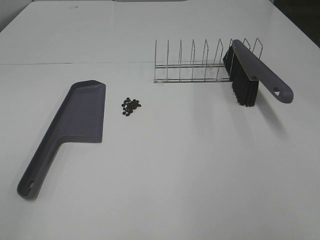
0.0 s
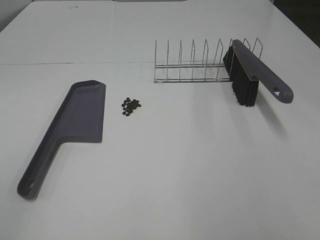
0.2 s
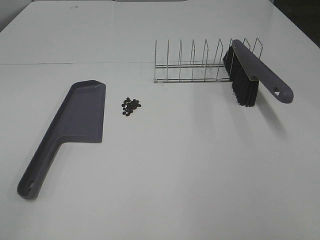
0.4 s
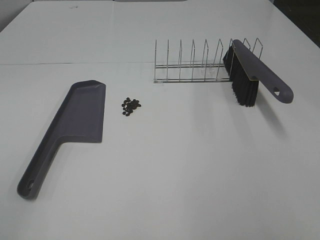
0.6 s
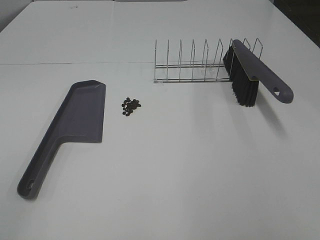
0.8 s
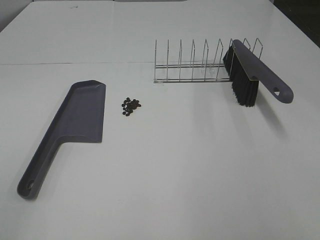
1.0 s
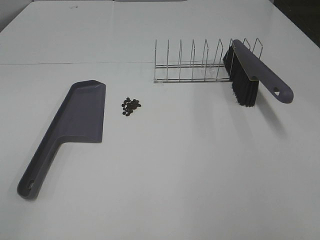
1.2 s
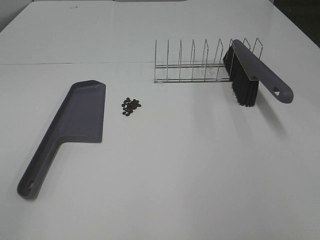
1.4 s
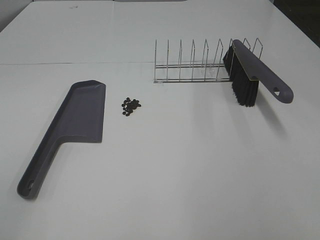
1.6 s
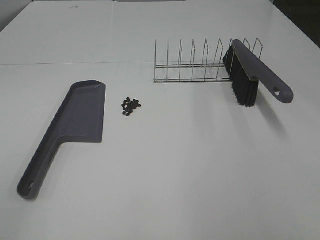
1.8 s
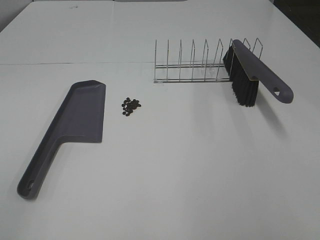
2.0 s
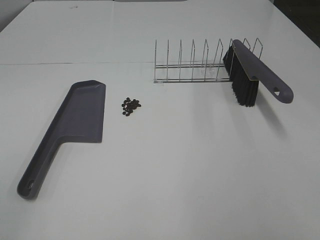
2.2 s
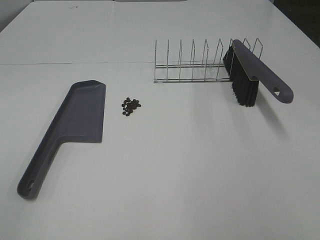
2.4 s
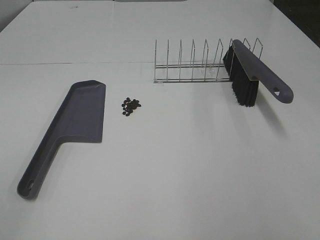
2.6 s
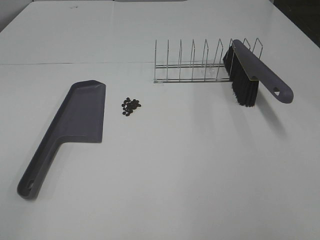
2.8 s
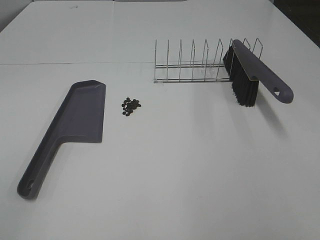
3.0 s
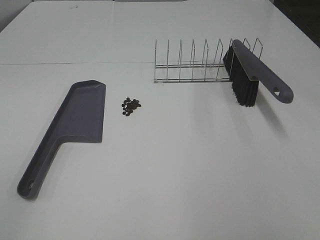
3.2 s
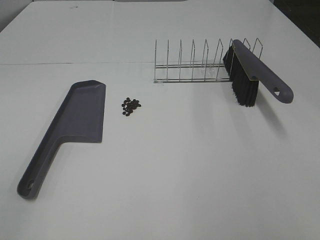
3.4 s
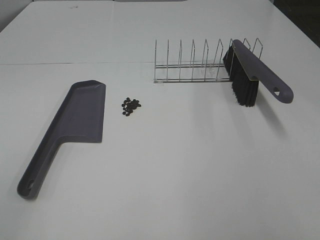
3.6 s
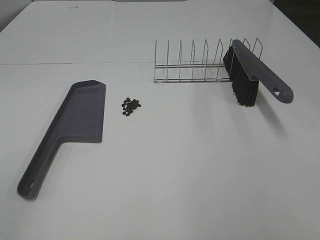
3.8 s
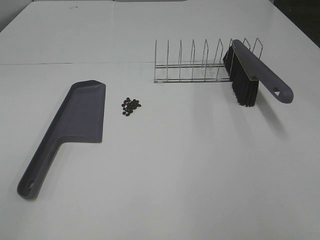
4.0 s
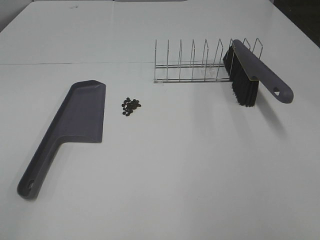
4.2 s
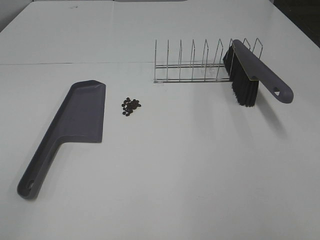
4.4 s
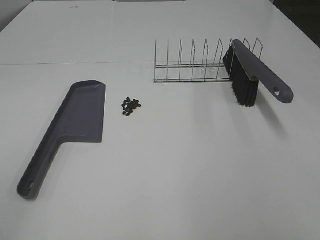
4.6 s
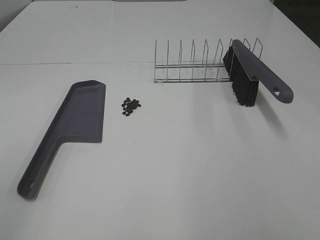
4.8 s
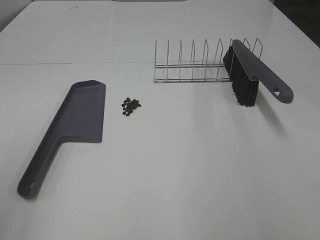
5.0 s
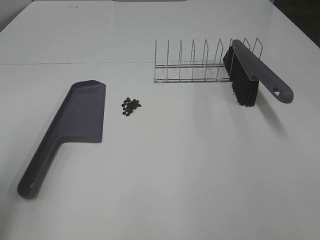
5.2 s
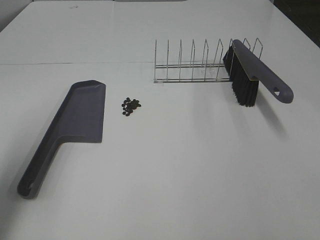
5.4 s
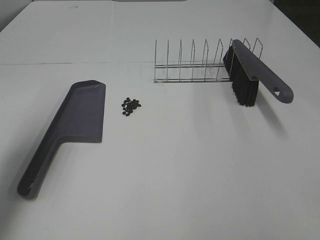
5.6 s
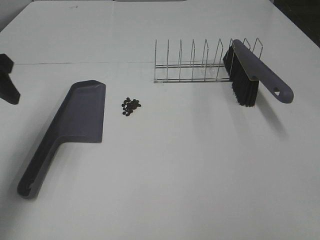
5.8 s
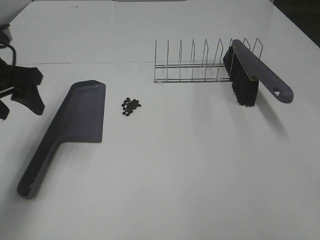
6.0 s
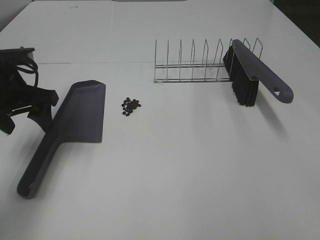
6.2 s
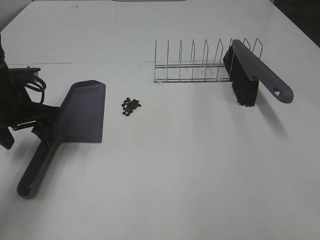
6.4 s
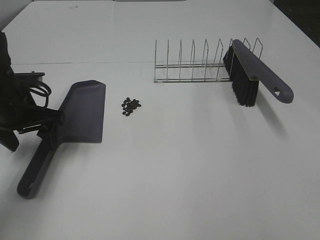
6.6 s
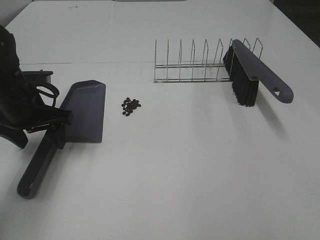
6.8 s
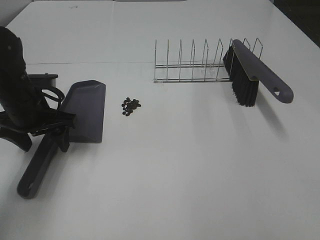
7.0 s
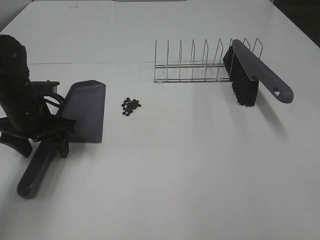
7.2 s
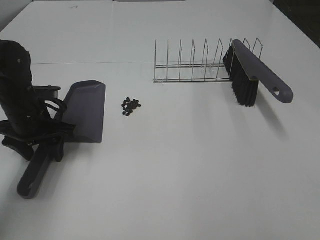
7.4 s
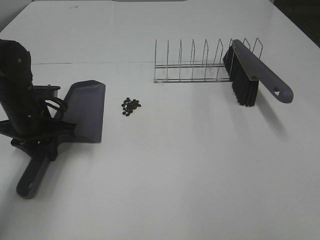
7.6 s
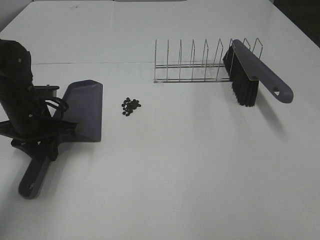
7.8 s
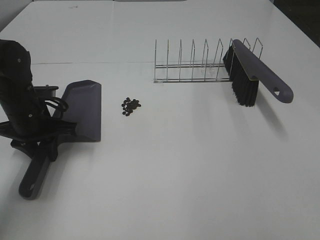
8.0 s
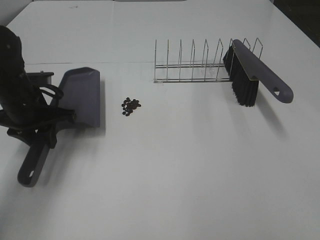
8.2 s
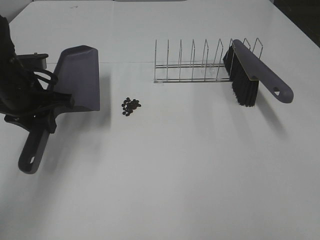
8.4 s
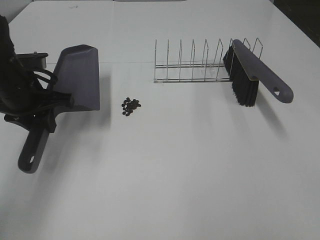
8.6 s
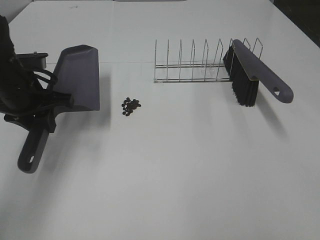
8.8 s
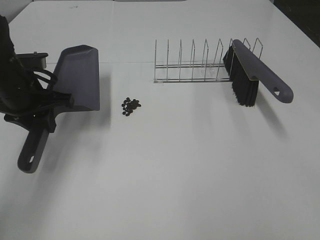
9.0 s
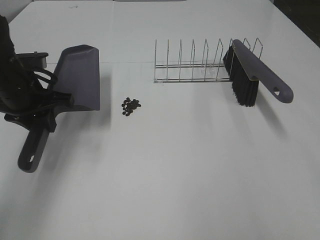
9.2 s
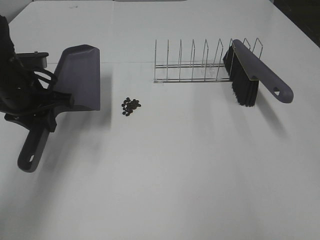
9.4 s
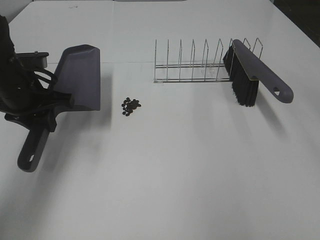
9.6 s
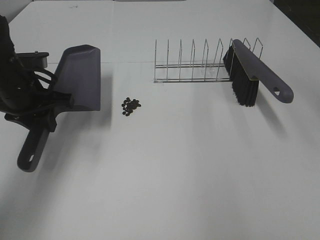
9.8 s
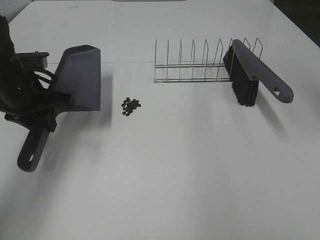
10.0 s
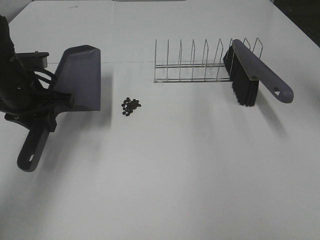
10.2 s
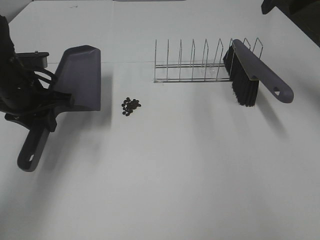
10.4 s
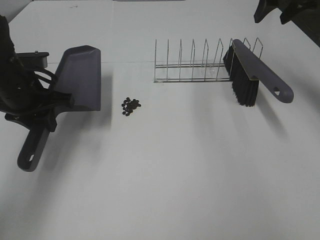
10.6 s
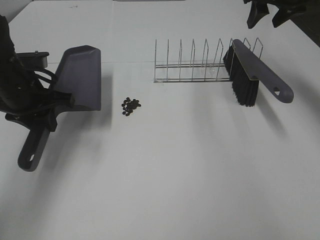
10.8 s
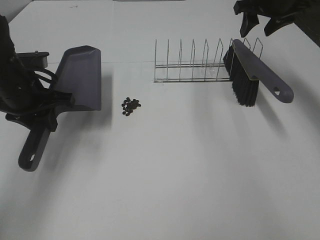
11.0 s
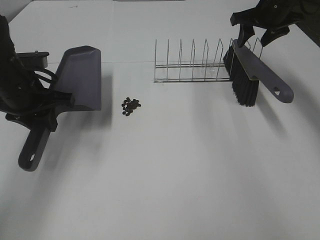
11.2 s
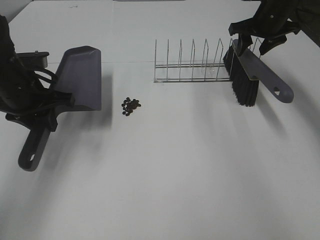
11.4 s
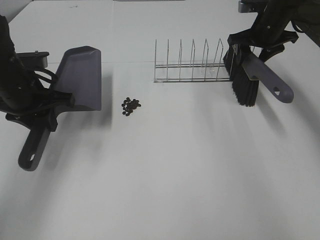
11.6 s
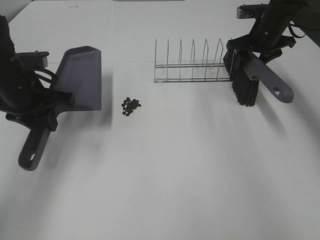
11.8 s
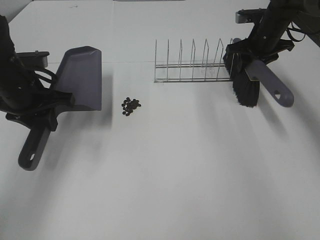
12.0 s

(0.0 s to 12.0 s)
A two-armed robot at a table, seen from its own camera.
Task of the whole recording: Sweep Coffee Bean.
Step, 0.0 s - 7.8 s: Left hand: grab the dustpan.
0.0 s - 4.4 s: Both grippers stay put.
4.4 s - 6.0 s: The left gripper shifts approximately 35 cm forward.
6.0 s - 7.6 s: The left gripper shifts some 10 cm downward, and closes.
7.6 s - 9.0 s: The left gripper is displaced upward by approximately 5 cm.
9.0 s - 10.4 s: The right gripper travels forward by roughly 40 cm.
10.4 s - 12.0 s: The right gripper heads downward and forward, covering about 20 cm, and closes its fingers.

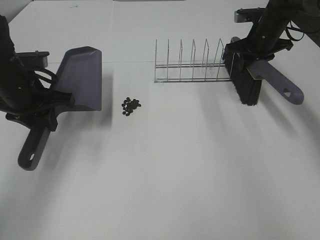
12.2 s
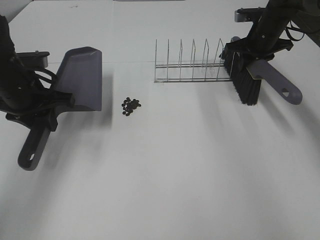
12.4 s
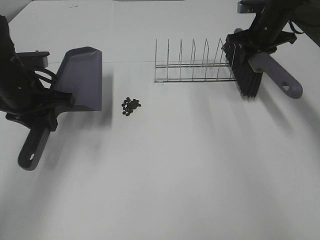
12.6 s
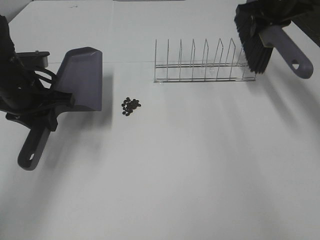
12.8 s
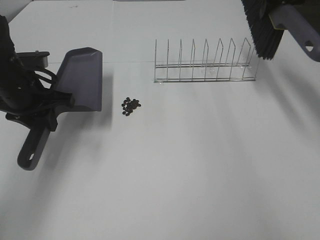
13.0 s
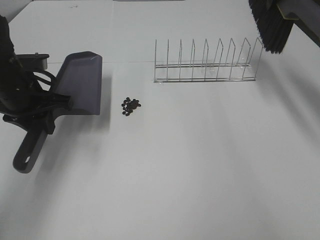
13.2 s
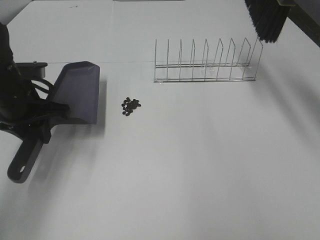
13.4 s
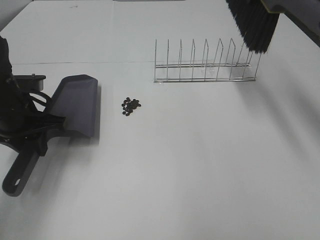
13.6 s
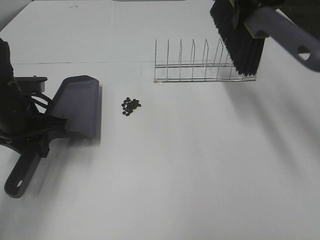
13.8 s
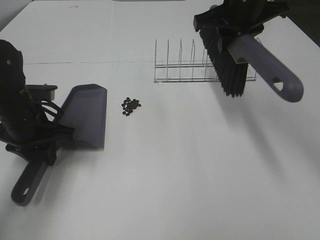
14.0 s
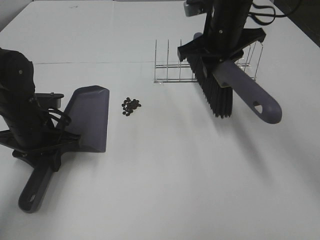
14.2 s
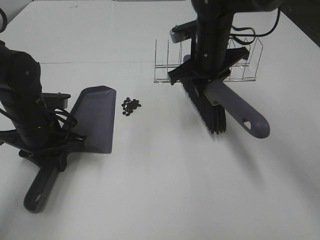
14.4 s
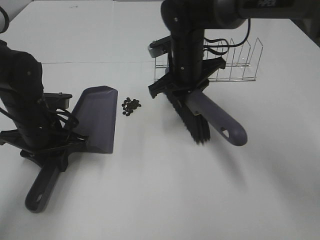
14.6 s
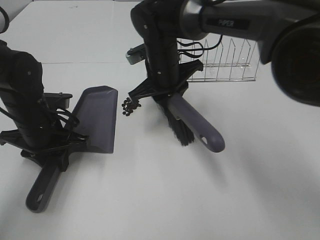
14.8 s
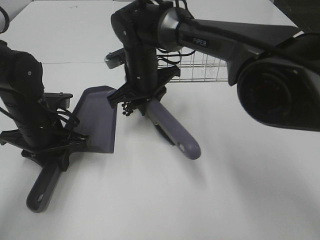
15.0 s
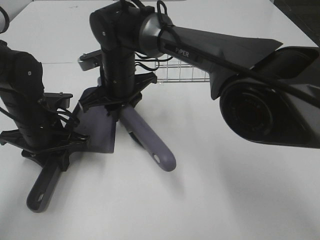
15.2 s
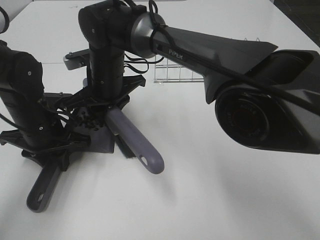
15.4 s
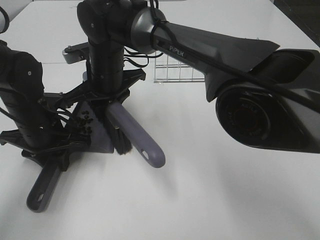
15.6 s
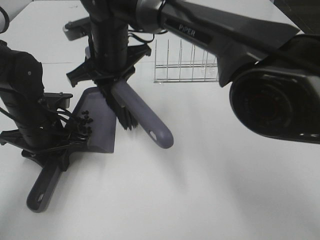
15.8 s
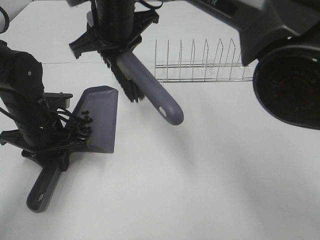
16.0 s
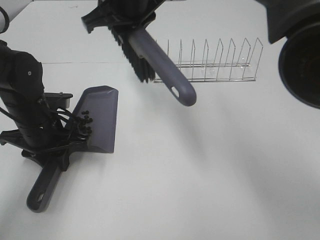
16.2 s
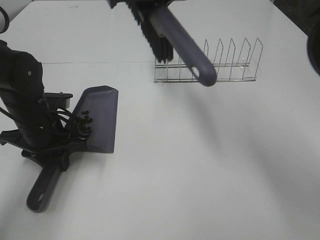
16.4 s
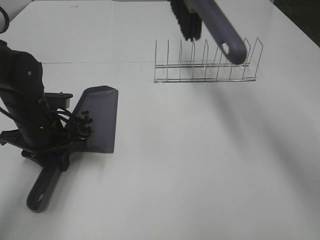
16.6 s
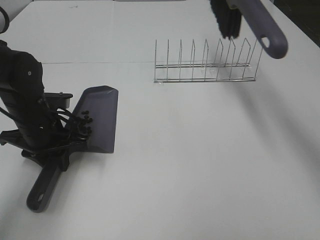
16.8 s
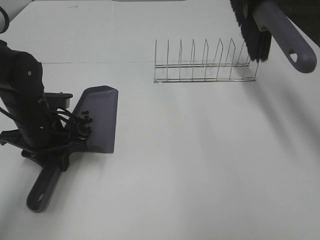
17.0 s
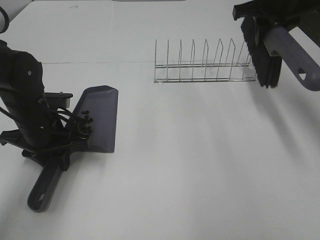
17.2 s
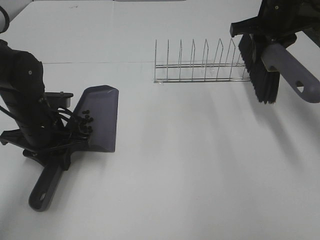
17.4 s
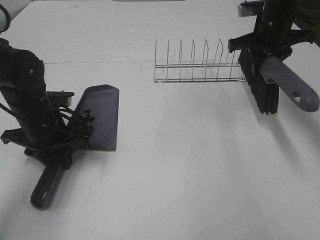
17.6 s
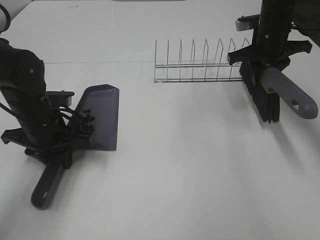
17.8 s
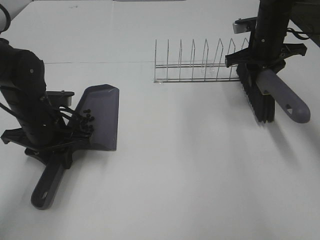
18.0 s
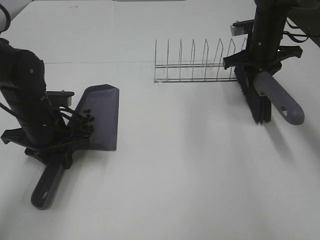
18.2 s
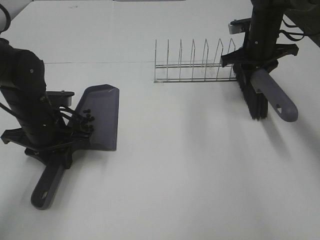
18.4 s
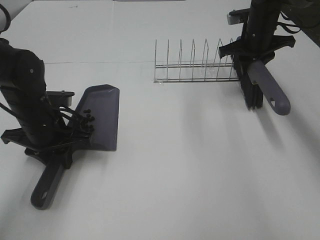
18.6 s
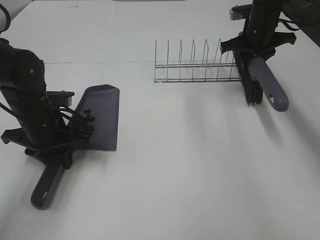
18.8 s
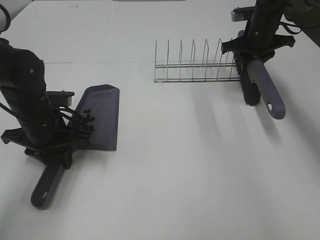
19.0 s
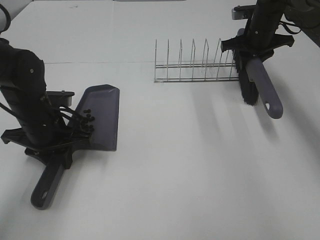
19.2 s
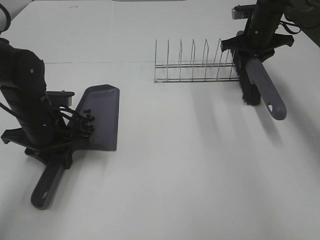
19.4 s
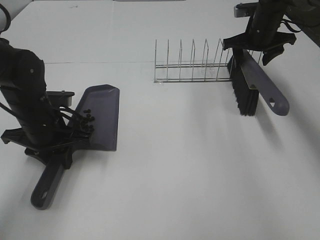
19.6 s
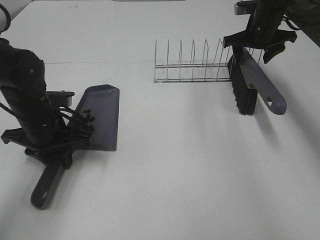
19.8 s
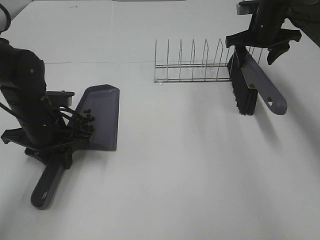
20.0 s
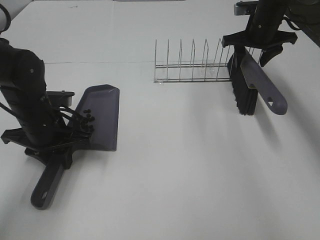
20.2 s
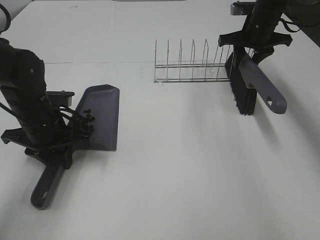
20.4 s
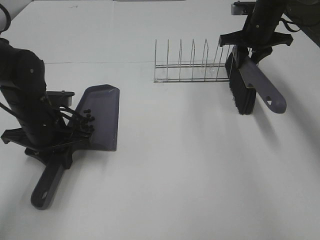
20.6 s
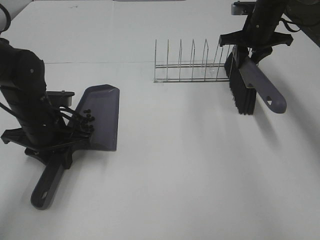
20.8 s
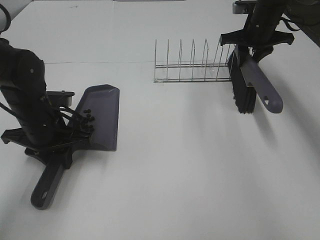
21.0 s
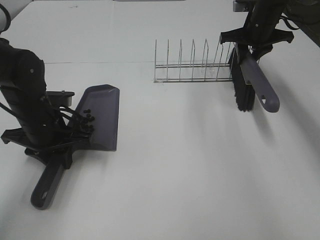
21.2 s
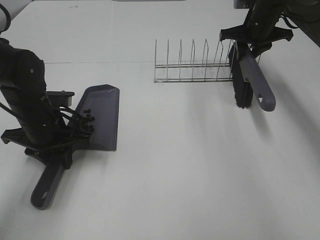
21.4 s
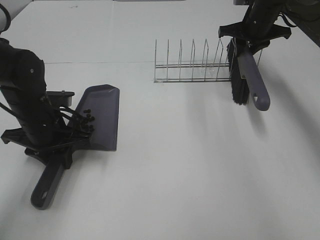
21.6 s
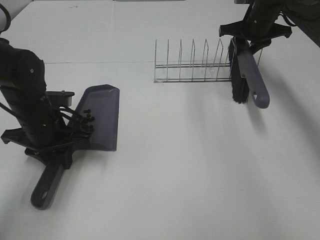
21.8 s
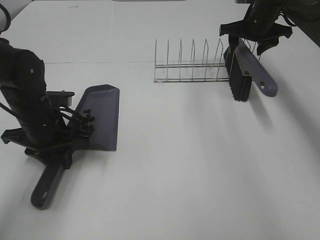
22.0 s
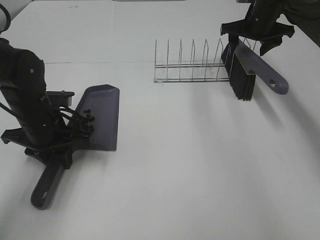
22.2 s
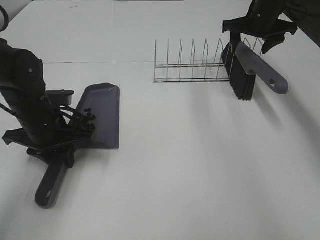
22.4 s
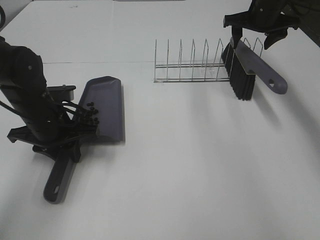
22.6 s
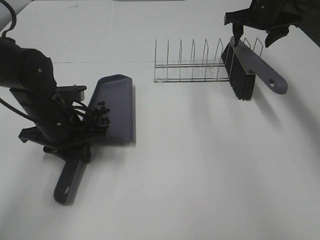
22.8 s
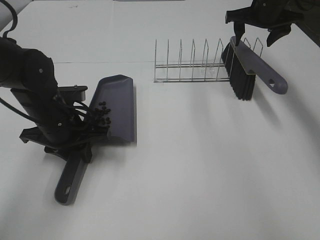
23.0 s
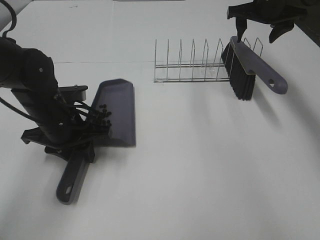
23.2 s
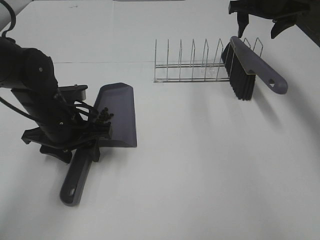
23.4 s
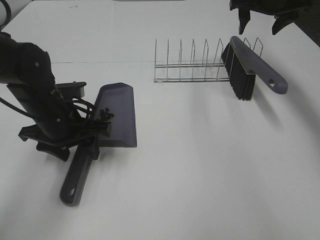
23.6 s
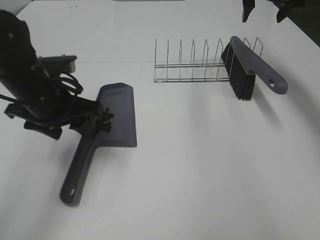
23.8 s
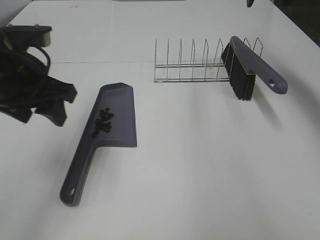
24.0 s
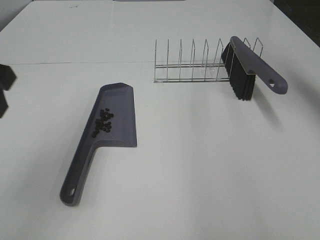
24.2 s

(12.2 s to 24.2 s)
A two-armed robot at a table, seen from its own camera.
Task of the whole recording: Sweep Coffee Bean.
Step, 12.2 s - 14.4 s: Left hand: move the dustpan to the left side of the coffee beans.
Step, 12.2 s - 15.6 s: Right hand:sweep the coffee beans into the dustpan.
Step, 15.8 s - 22.0 s: Right hand:place the broom on the rack.
Step, 22.2 s - 23.4 s: Left hand:place the dustpan on the table.
12.2 s - 13.8 s: The right gripper goes some 20 cm upward, backward and to the left.
13.8 s - 15.2 s: The right gripper moves to the left and downward, some 30 cm.
15.2 s - 16.6 s: The right gripper travels upward and to the right by about 25 cm.
16.6 s - 18.2 s: The right gripper shifts about 25 cm downward and to the right.
18.2 s - 19.8 s: The right gripper heads forward, covering some 5 cm, and opens.
19.8 s - 21.2 s: The right gripper closes.
21.2 s - 22.6 s: The right gripper opens.
22.6 s - 24.2 s: The grippers both shift upward and backward by about 20 cm. The left gripper opens its fingers.
